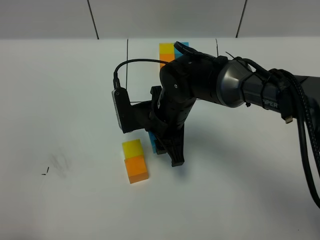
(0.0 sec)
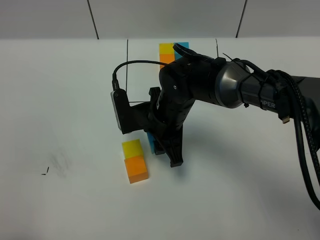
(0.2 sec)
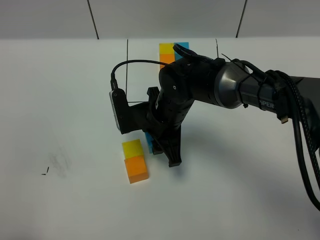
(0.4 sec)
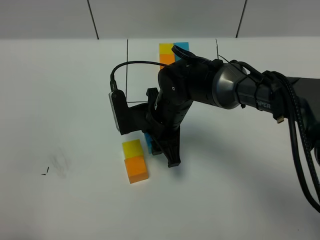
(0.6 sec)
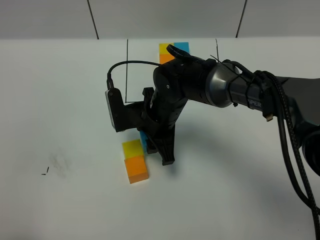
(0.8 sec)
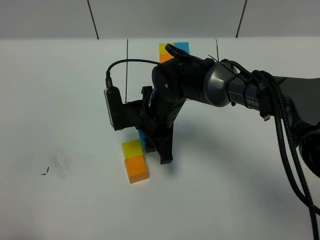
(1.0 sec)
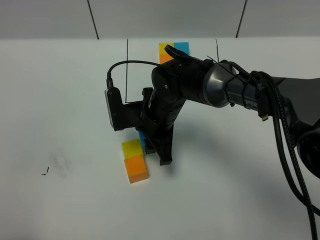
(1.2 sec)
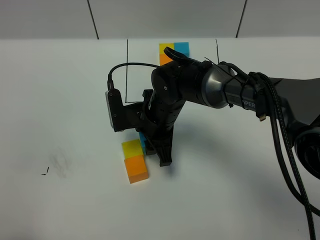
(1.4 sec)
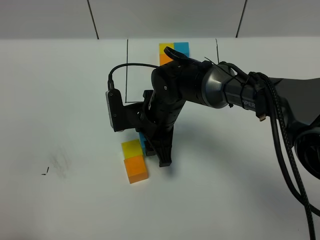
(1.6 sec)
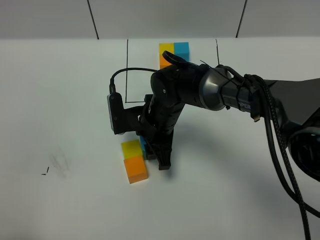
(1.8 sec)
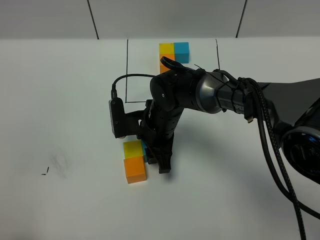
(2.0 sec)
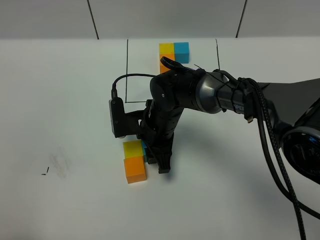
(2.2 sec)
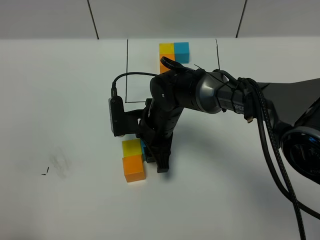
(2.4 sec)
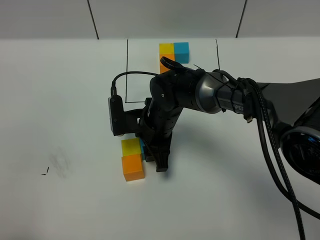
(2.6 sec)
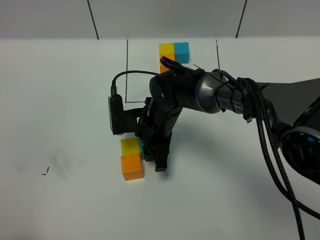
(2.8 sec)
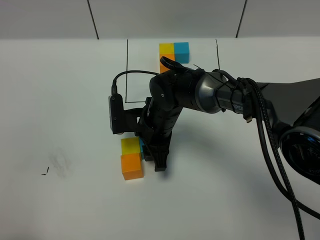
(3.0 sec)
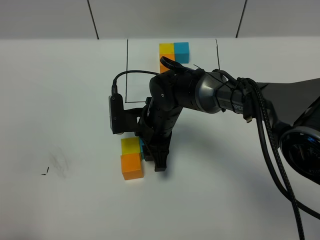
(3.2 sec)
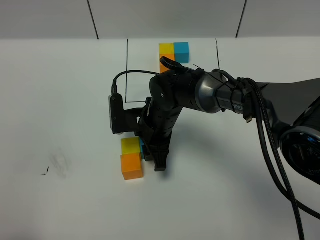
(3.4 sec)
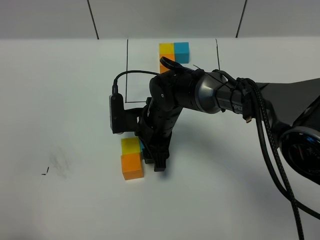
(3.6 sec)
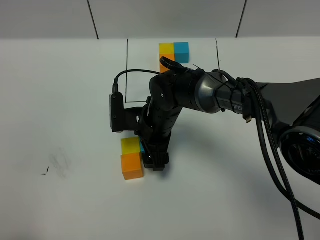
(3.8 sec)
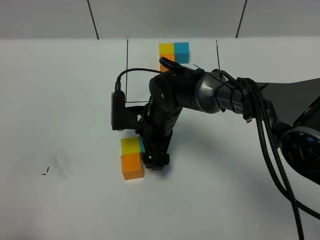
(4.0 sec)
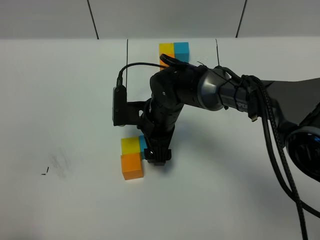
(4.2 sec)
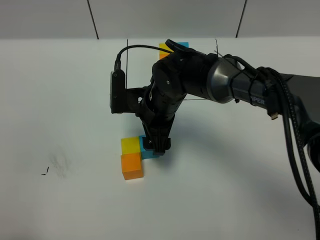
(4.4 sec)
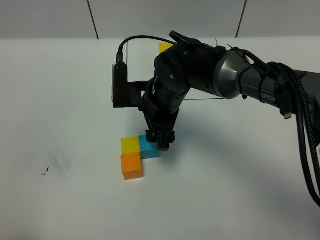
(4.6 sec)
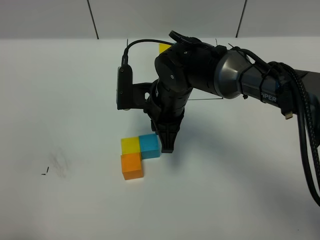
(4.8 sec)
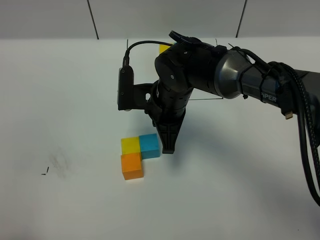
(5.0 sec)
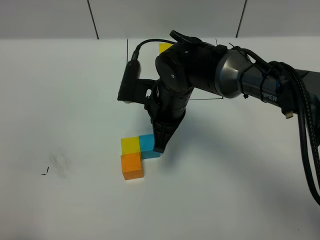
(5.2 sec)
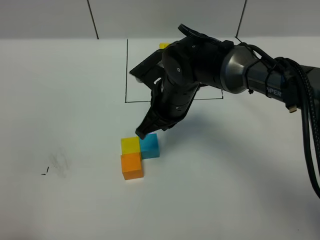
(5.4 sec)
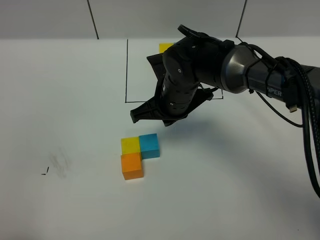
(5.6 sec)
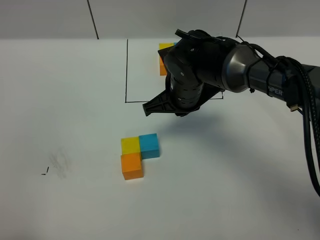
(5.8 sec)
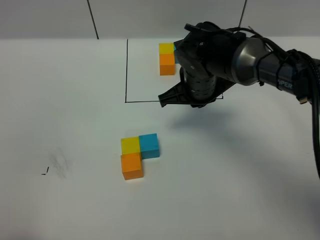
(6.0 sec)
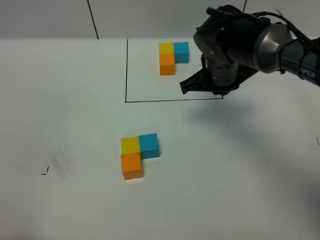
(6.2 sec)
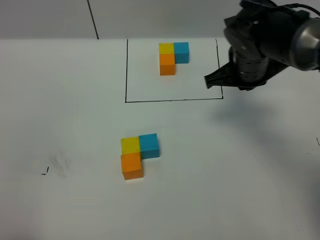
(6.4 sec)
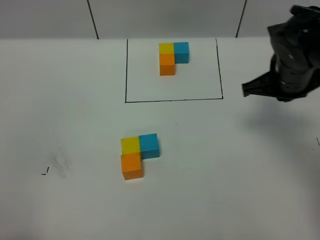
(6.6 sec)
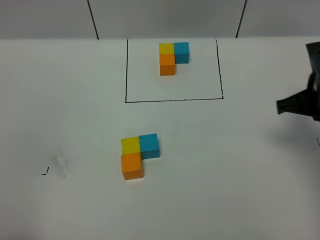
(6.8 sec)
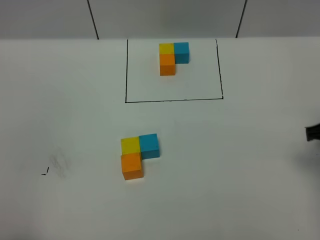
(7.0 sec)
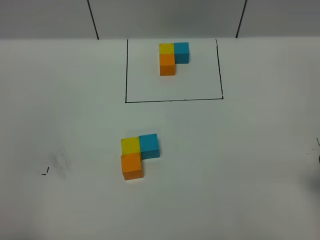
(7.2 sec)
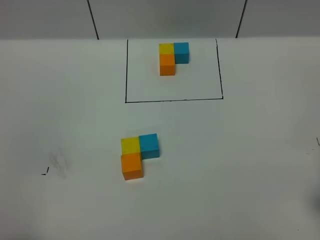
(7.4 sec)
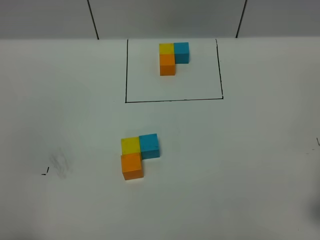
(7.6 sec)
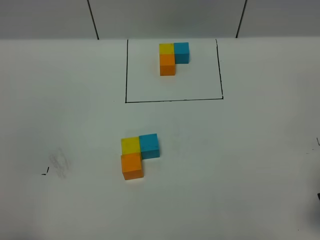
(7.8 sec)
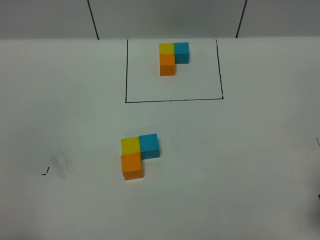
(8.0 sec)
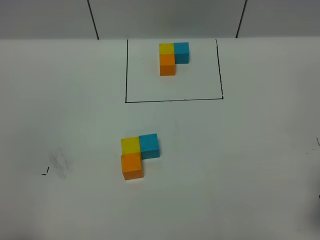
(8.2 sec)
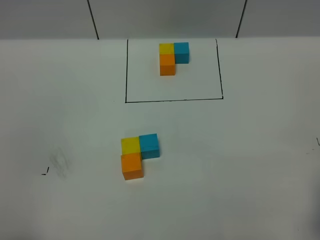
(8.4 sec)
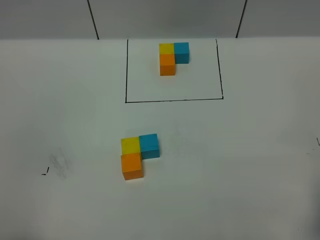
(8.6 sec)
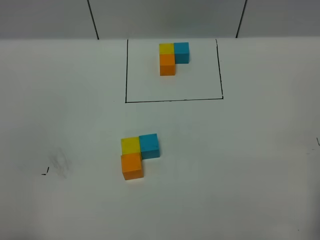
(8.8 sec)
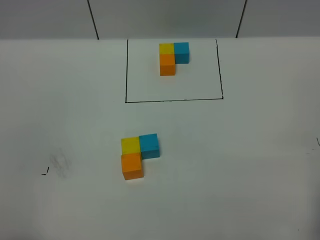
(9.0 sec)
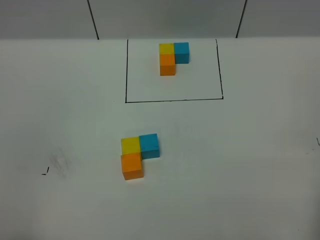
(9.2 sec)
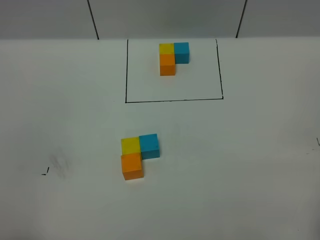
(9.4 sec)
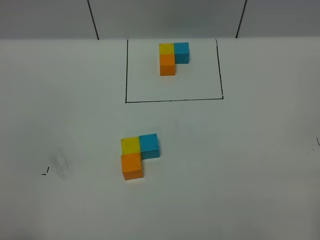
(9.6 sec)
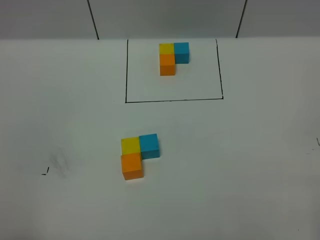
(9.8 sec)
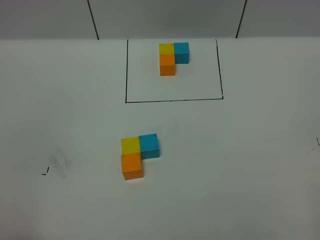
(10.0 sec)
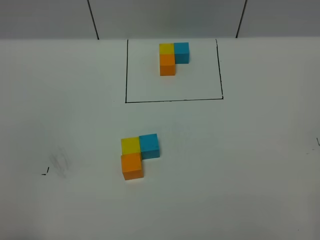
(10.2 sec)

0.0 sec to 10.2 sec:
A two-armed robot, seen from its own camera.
Task of the whole recording: According to the building block template in front, assemble the scattered blocks together.
Step, 0.0 sec to 4.6 sec: Put the blue cube on the right of the yellow cube.
0.0 sec to 3.0 sec: The grippers move only a little.
3.0 sec to 4.4 sec: The right gripper travels upward by approximately 5 cm, and opens.
4.4 sec to 5.8 sec: The right gripper closes up.
5.8 sec to 7.2 sec: The right gripper shifts roughly 30 cm to the right and backward.

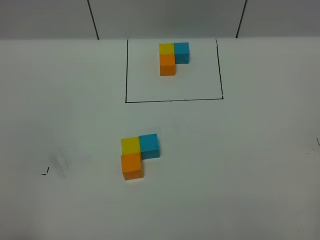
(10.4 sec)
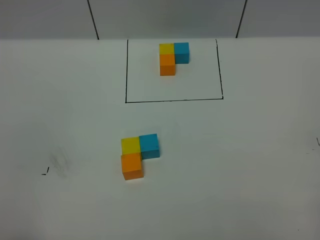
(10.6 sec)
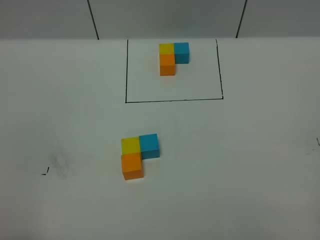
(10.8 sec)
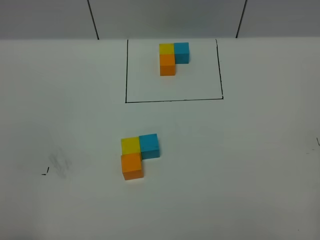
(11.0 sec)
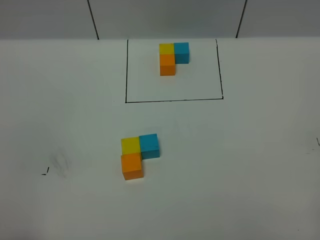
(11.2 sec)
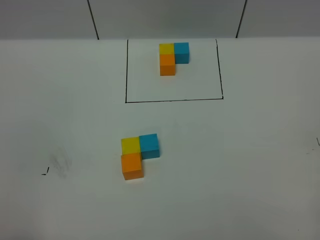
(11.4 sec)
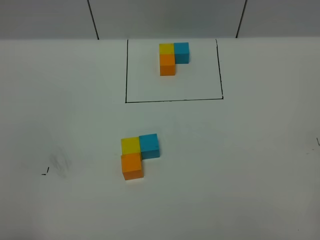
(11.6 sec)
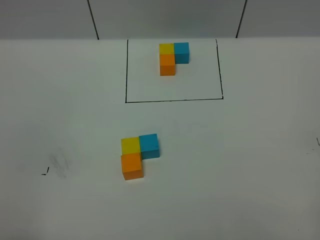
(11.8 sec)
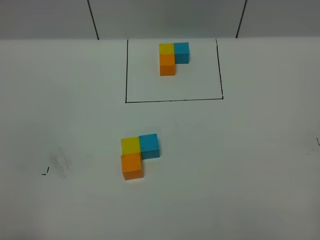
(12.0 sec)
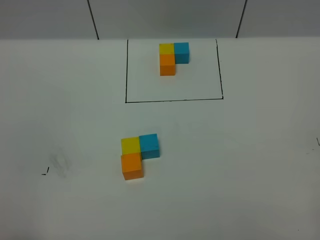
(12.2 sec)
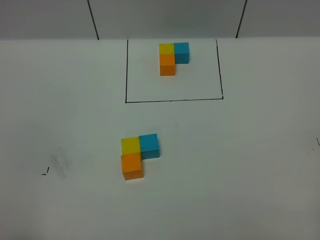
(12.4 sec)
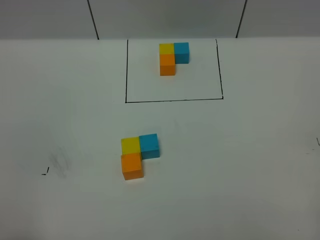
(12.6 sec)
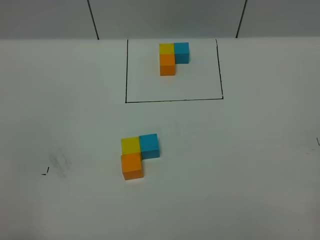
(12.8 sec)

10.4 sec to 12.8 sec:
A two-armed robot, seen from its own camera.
Task of the whole recording: According to the building block template in front, assemble the scattered blocks together.
11.6 sec to 12.8 sec: The two grippers keep their place.
